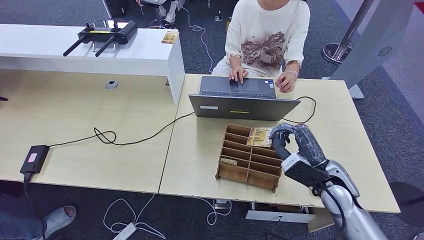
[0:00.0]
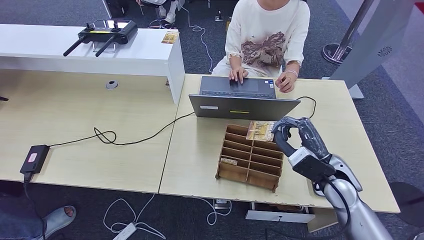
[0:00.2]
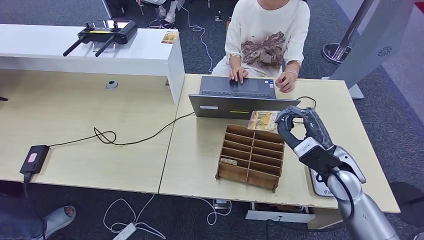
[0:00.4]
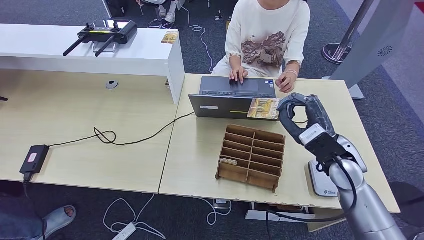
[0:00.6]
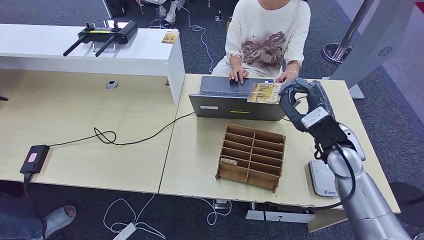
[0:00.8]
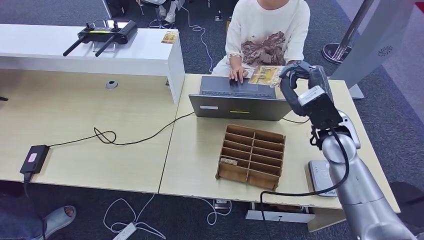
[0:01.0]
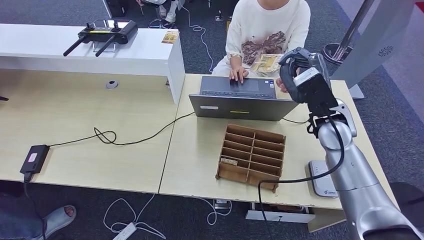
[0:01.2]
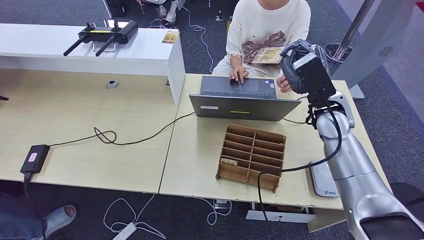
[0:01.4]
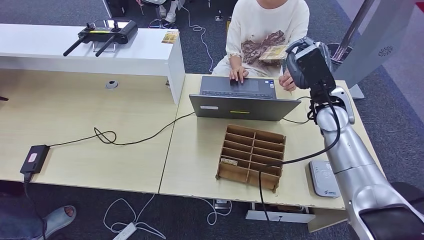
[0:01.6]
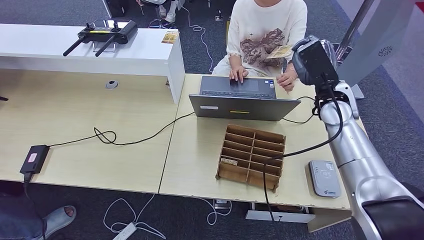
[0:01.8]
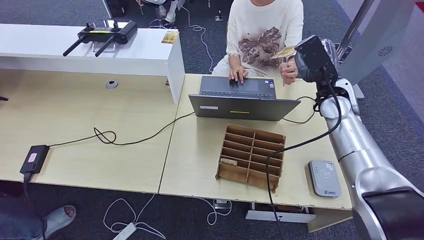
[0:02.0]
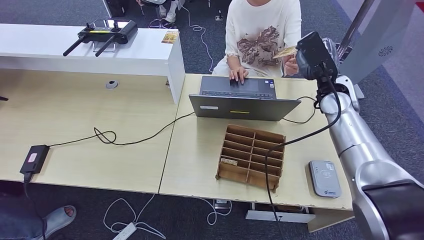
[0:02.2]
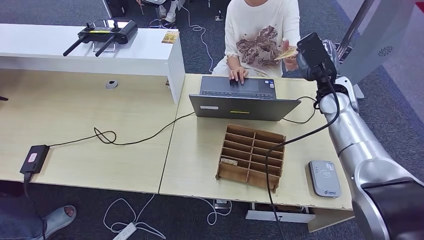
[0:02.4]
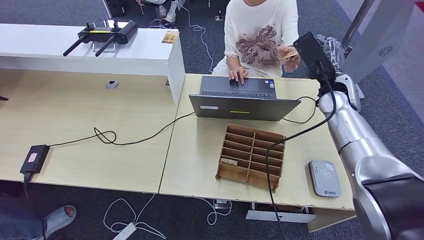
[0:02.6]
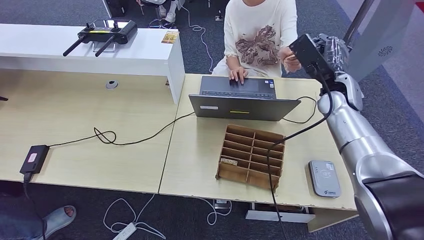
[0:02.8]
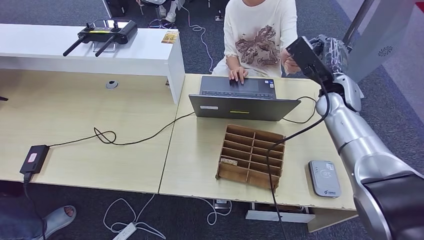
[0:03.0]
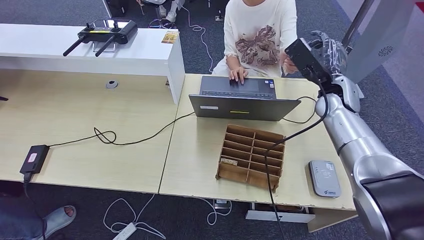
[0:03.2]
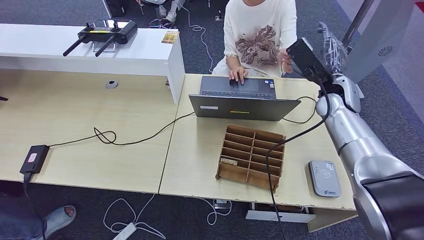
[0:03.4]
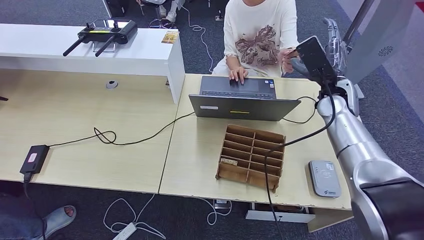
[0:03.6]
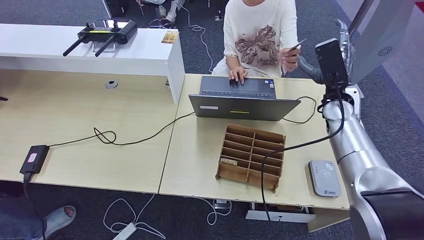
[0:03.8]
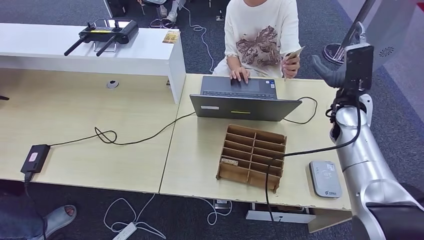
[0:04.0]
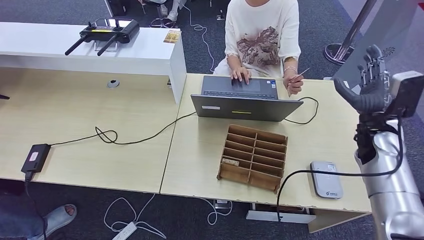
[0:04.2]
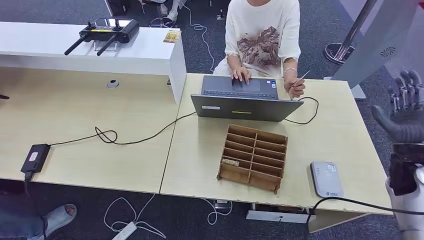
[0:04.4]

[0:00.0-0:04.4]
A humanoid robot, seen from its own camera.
Step, 0:00.0 to 0:04.2: Hand the room key to the person.
0:00.0 to 0:01.4: The right hand is displaced upward and forward by roughly 15 cm.
0:01.4 to 0:03.0: The right hand heads forward, covering approximately 5 cm.
0:03.0 to 0:04.4: The right hand shifts roughly 20 cm to the right, backward and downward.
